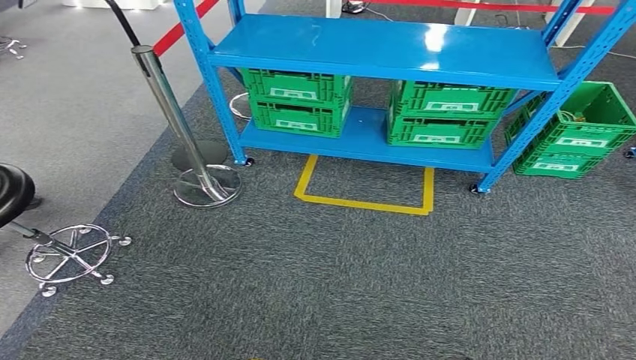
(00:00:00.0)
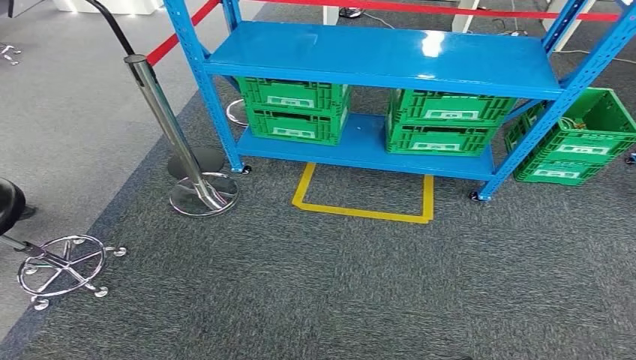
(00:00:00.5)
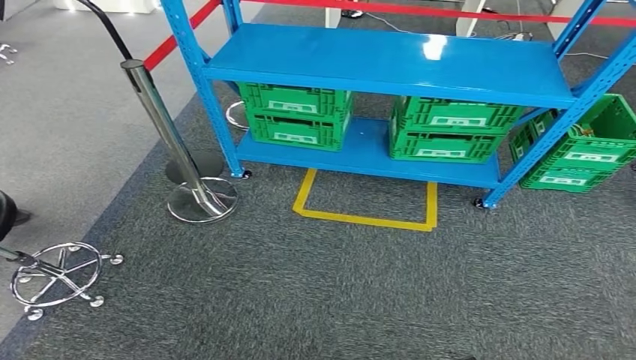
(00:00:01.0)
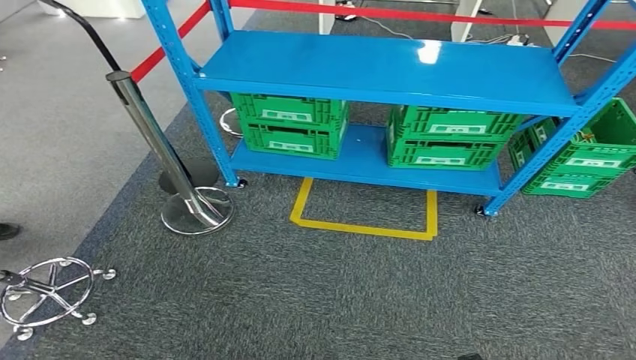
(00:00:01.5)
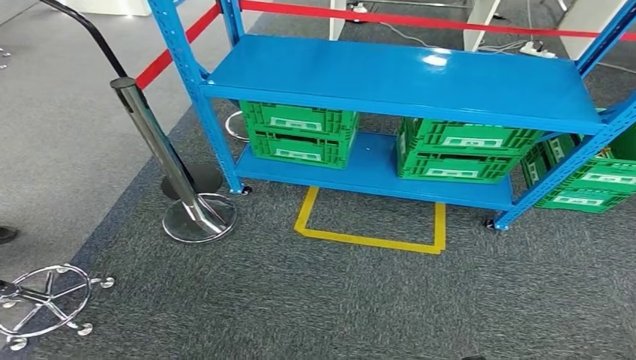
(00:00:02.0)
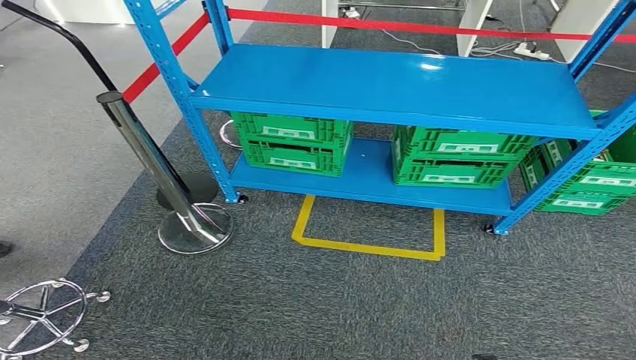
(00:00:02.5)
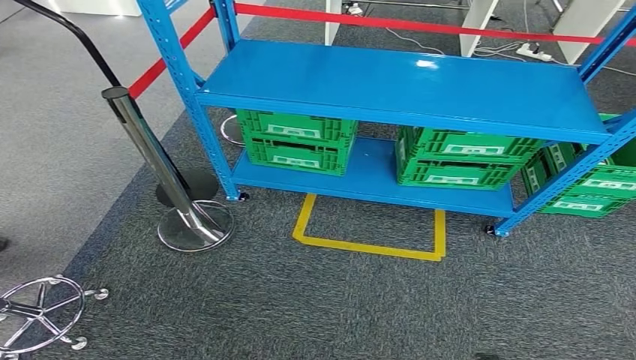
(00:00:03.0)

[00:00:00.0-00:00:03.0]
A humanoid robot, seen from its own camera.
Step, 00:00:00.0 to 00:00:03.0: Move to the initial position of the workbench.
